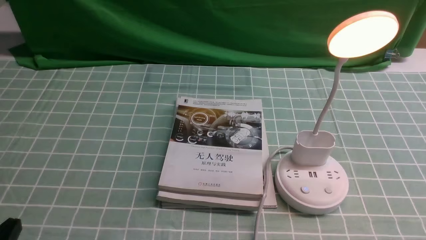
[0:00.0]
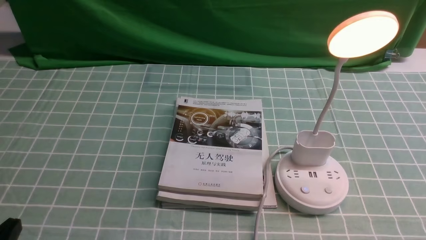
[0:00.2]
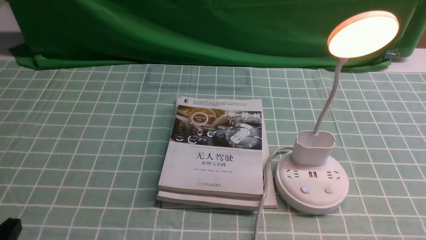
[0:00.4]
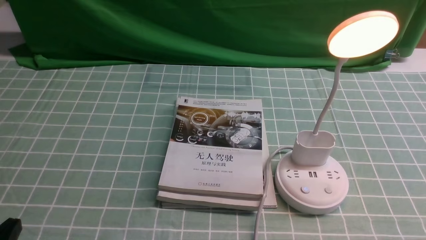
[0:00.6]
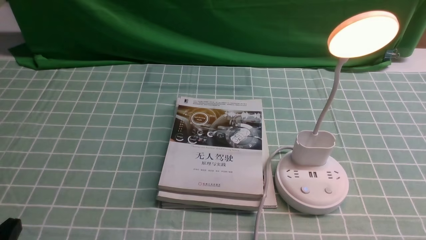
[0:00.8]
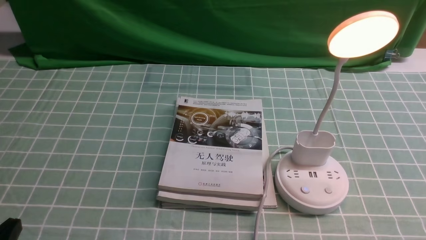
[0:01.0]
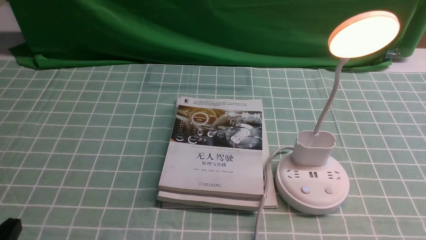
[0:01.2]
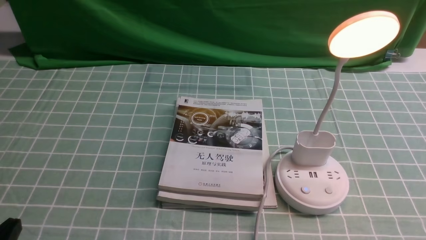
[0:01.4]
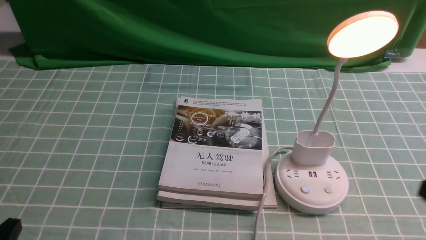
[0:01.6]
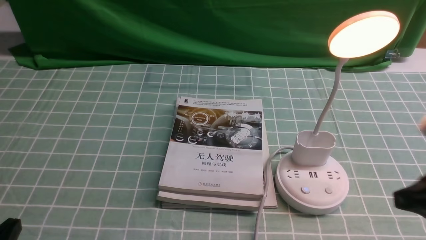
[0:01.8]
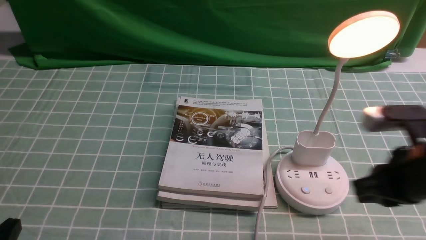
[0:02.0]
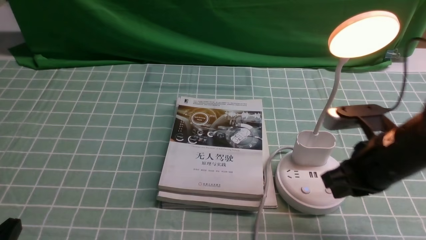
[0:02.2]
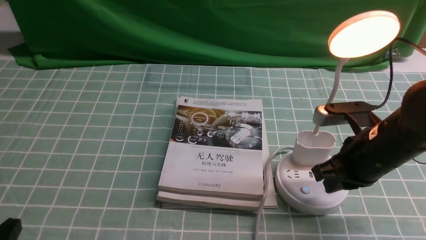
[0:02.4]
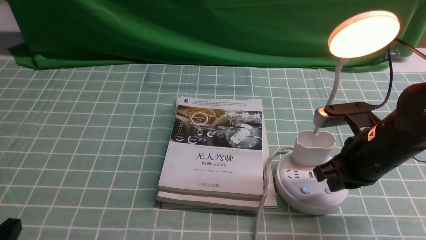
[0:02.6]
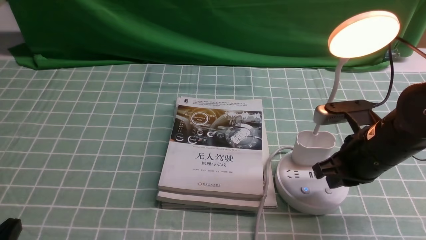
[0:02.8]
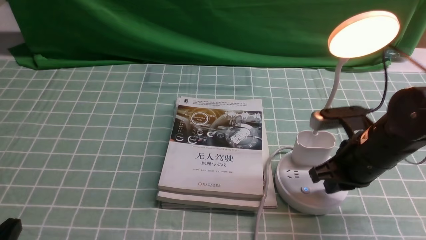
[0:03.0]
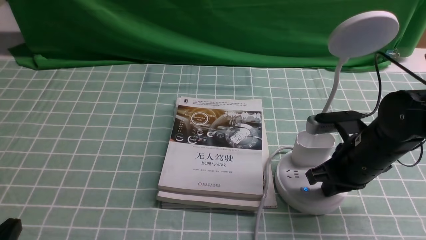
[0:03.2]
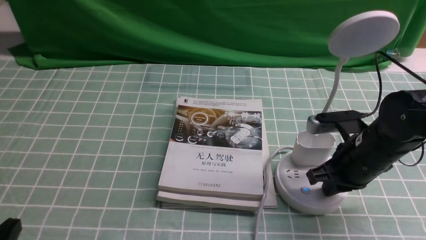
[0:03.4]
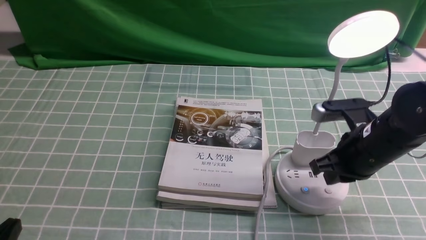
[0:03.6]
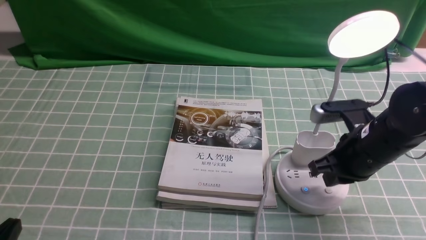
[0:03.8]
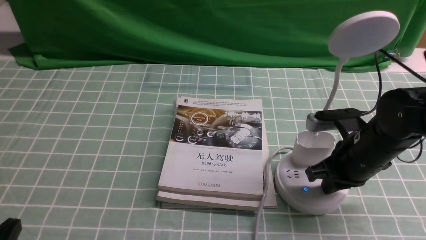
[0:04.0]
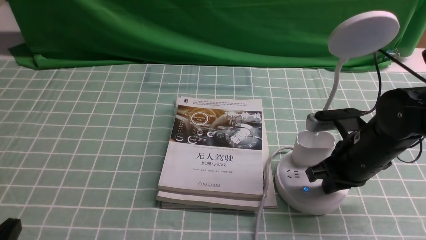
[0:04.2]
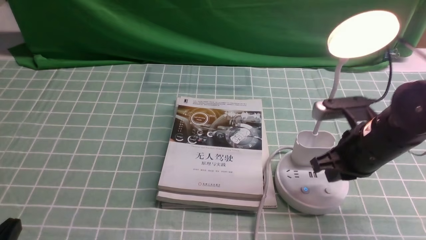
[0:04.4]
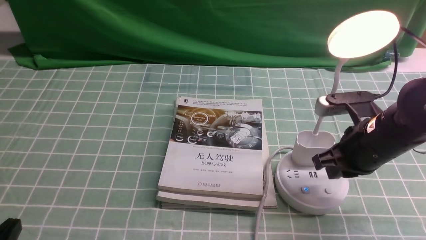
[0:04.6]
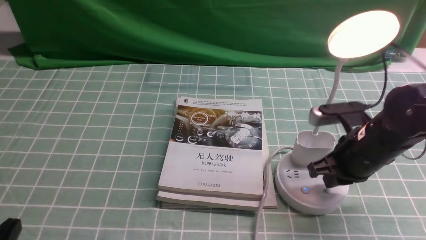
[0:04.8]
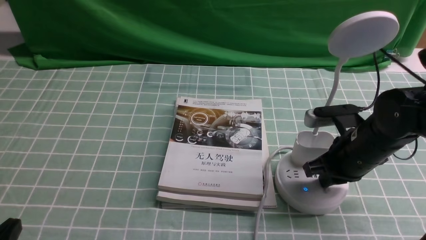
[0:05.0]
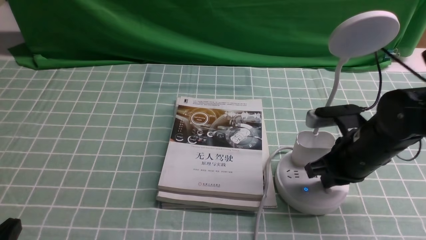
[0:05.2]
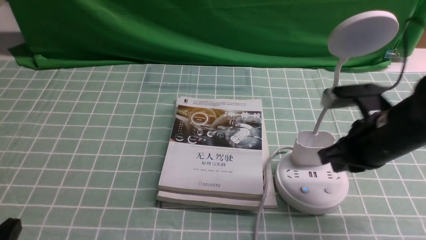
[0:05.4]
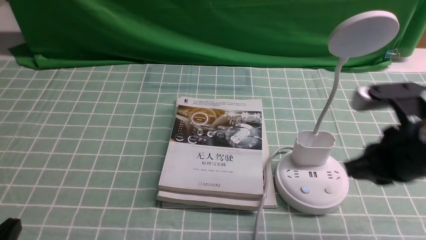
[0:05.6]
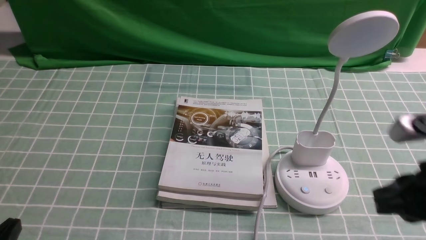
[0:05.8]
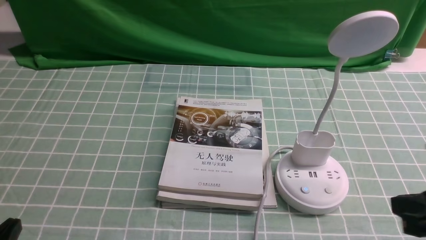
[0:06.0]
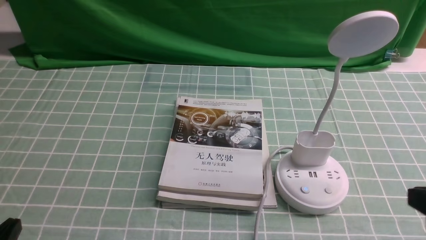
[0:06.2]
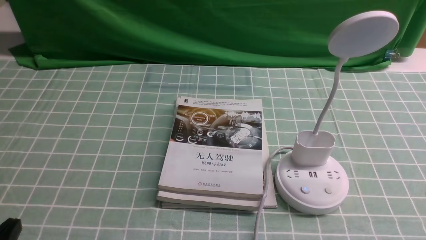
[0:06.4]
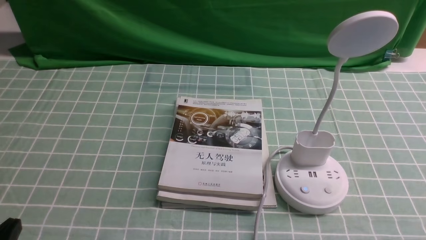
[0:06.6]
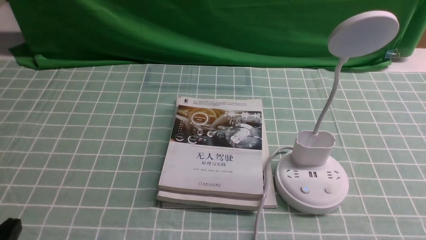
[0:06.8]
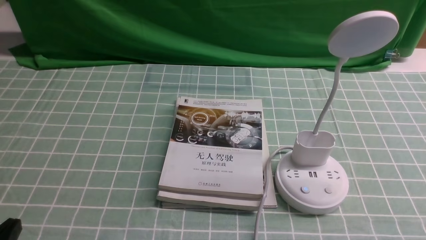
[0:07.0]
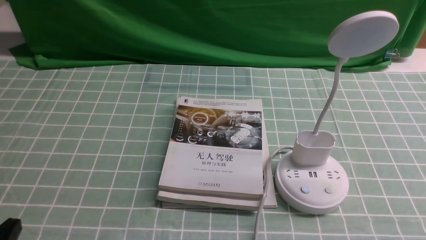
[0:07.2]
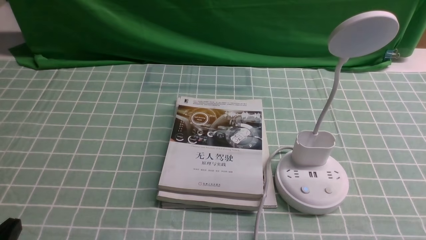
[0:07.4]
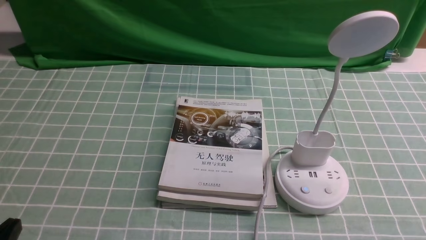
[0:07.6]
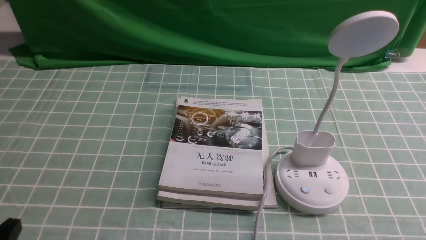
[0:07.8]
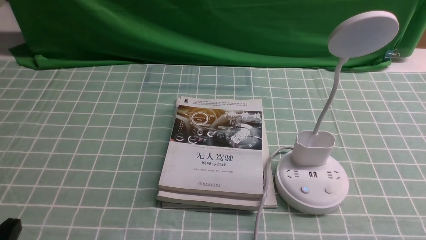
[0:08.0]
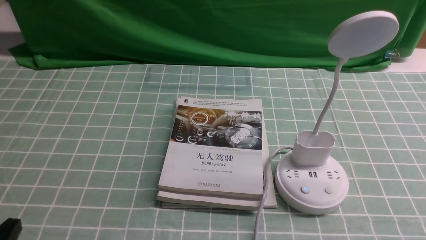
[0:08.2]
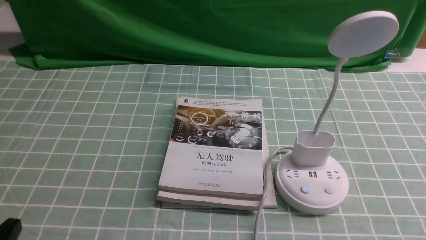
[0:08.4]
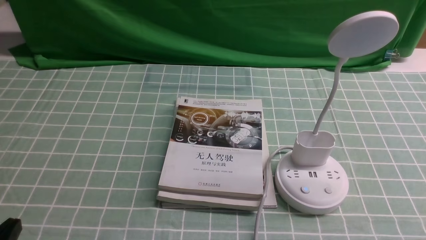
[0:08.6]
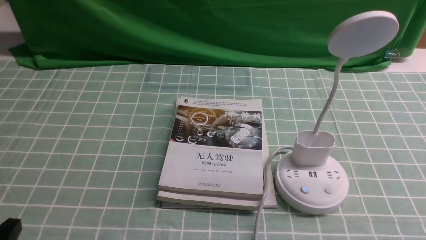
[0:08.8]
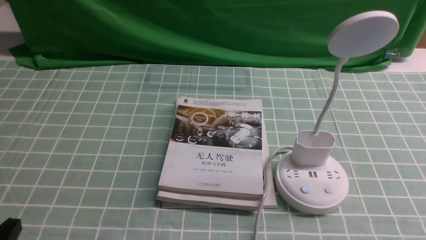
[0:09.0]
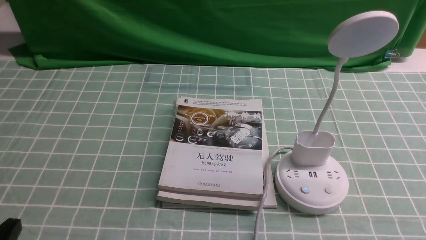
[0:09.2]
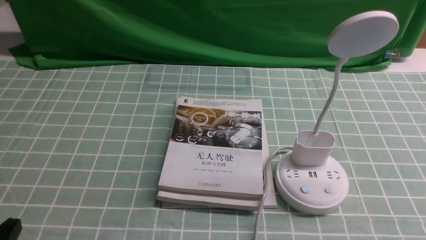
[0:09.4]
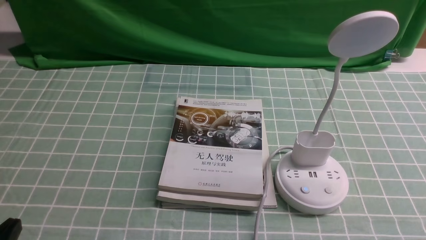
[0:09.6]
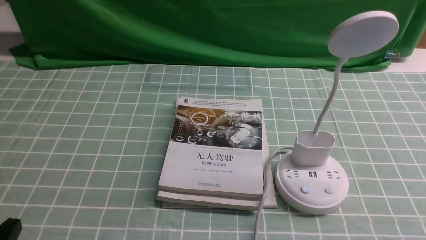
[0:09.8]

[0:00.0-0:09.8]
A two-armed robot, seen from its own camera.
Task of the whole recording: turn off the desk lamp on the blue coffee tablecloth by hand.
Step, 0:00.0 to 0:05.2: use the right arm to press the button switch on the lamp holder.
0:01.4 to 0:02.8: The right gripper goes about 25 cm forward and to the left, and closes.
0:02.8 to 0:04.2: The grippers move only a little.
0:04.2 to 0:05.6: The right gripper shifts approximately 10 cm upward and backward.
0:05.6 to 0:07.0: The right gripper shifts approximately 20 cm backward and to the right.
